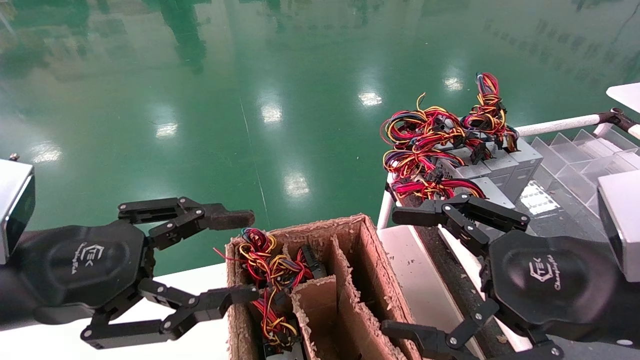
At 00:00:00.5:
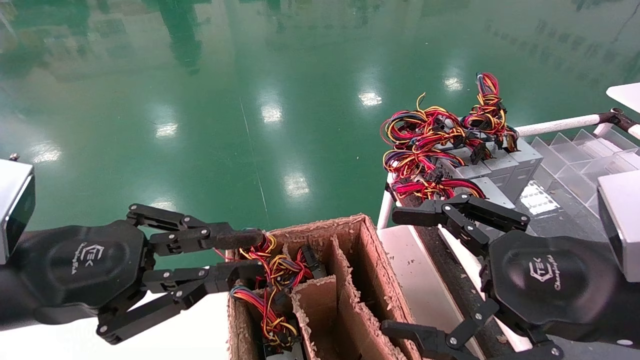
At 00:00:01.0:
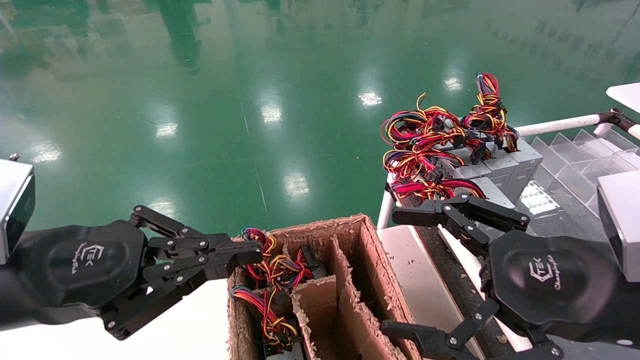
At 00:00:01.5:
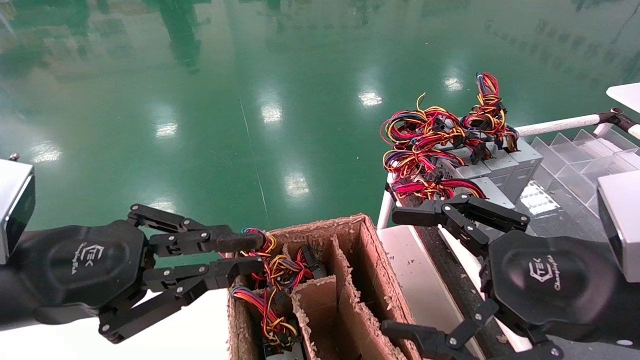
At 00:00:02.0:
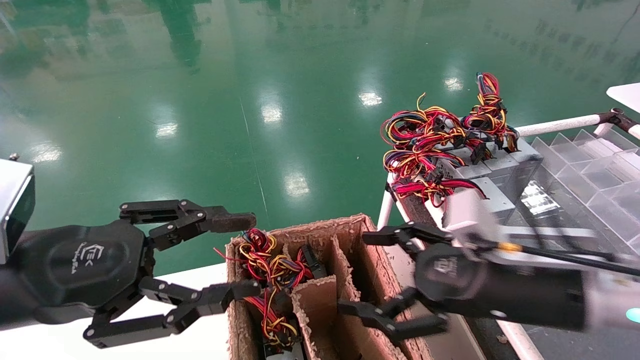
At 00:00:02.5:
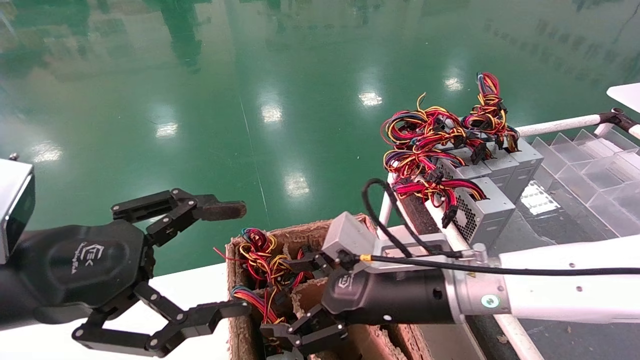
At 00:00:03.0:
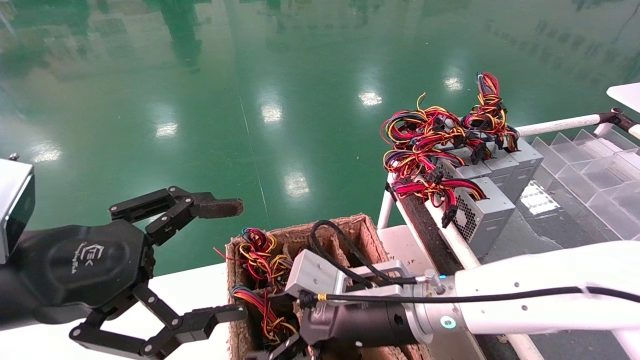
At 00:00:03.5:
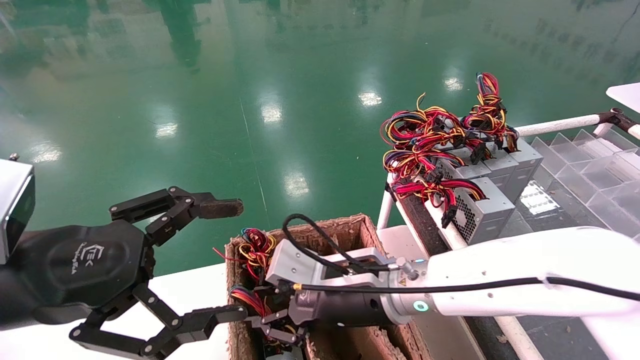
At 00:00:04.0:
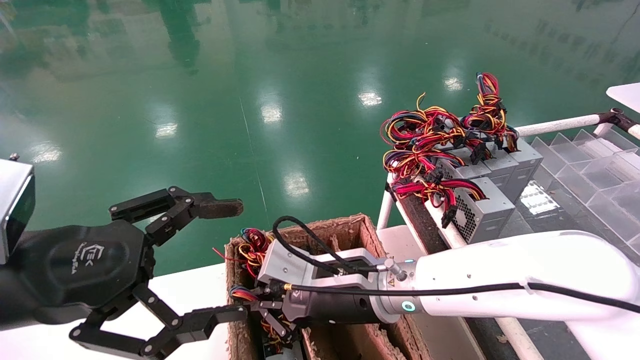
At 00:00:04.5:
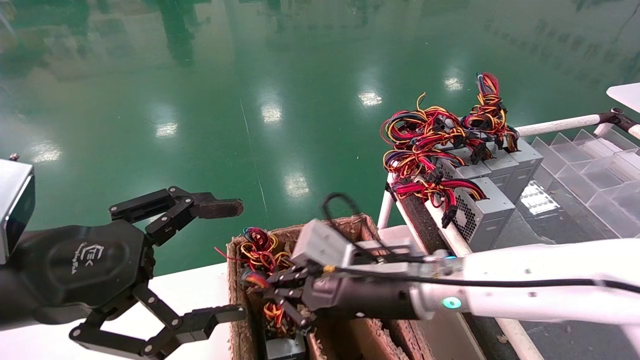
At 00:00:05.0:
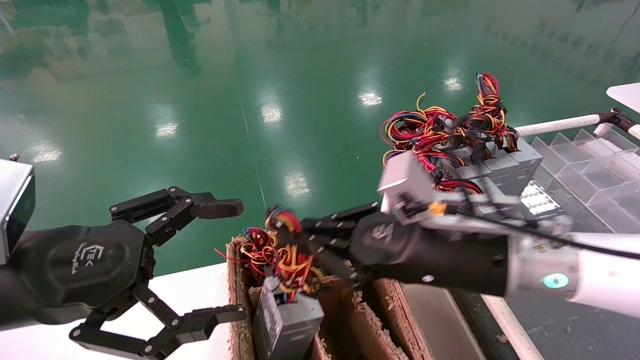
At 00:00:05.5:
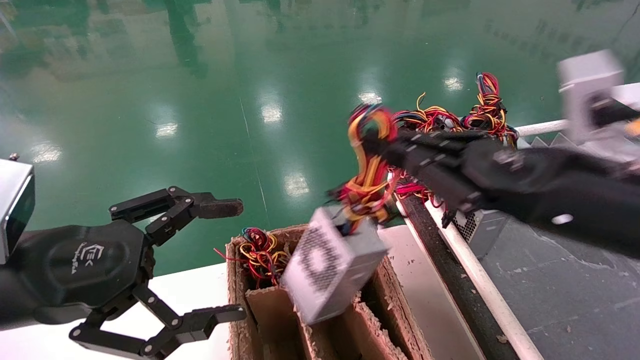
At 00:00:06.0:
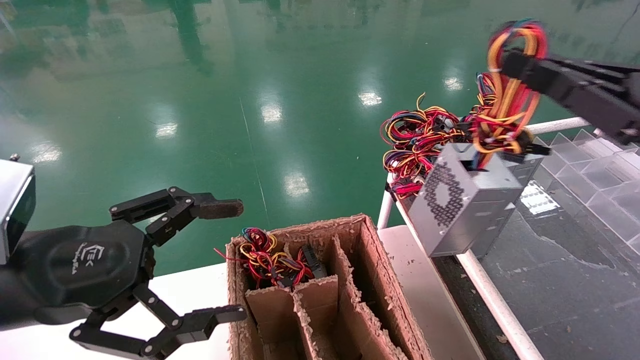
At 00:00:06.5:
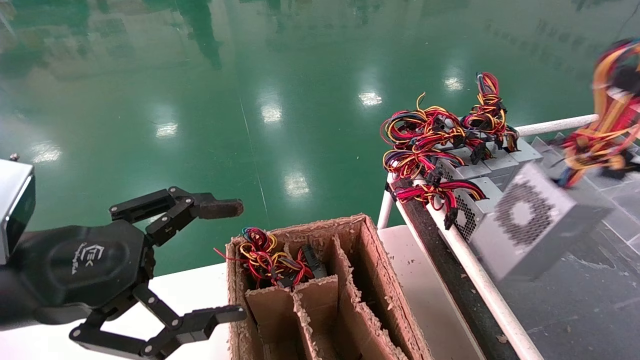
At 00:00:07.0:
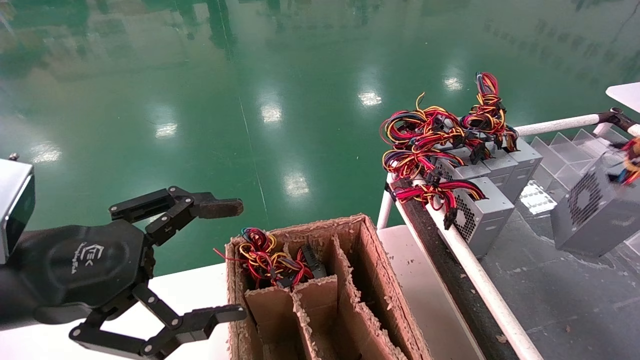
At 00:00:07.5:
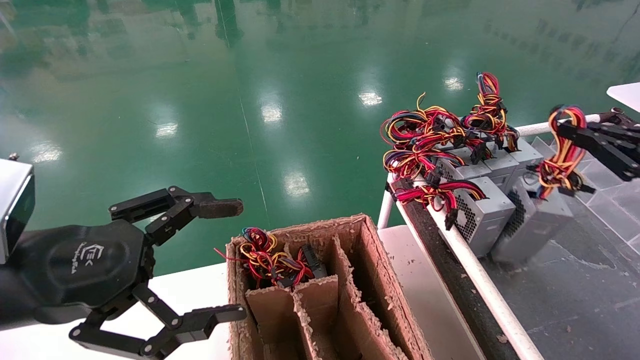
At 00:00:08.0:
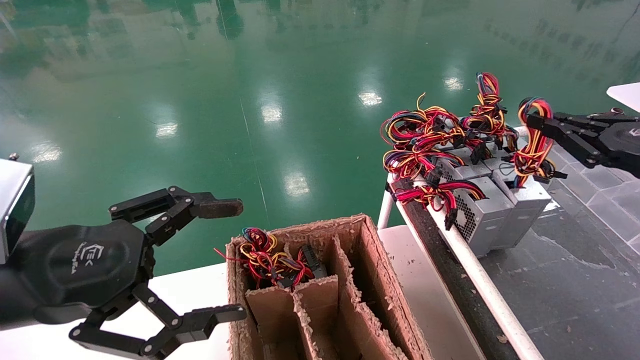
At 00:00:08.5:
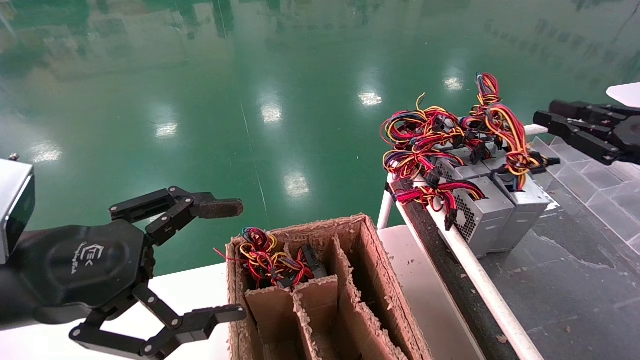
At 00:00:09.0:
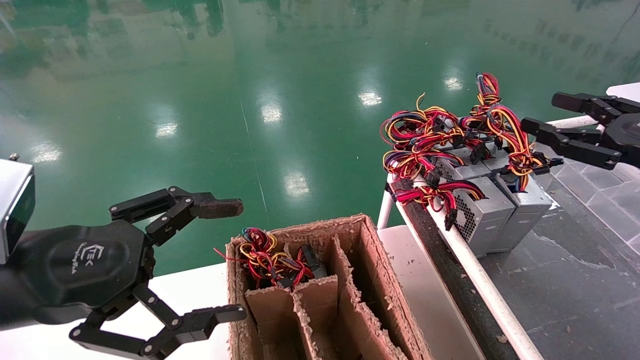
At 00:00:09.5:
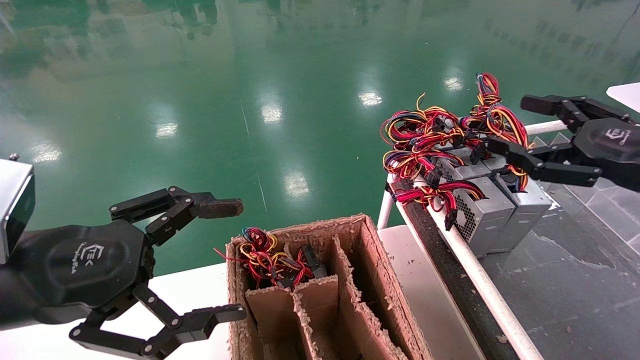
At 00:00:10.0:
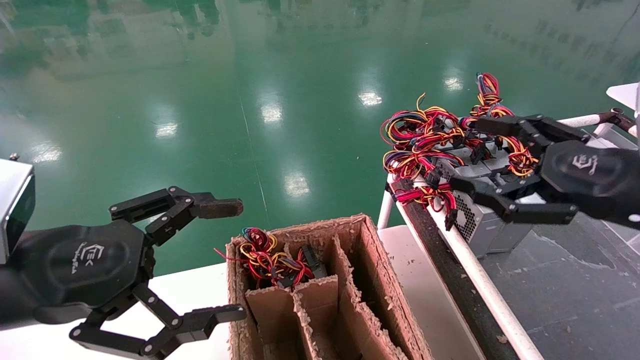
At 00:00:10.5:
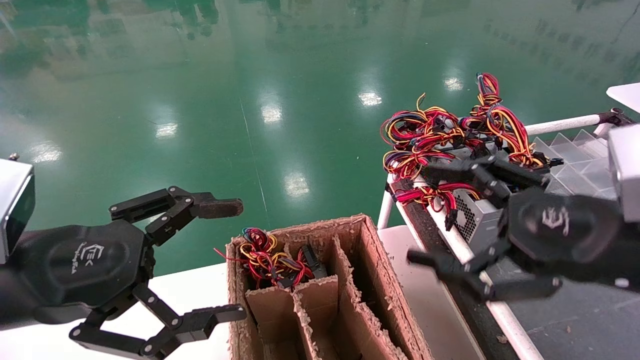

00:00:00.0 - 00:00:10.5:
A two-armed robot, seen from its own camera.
Step, 00:00:01.0 - 00:00:04.0: Grab and lift the power supply from the large box.
Step, 00:00:04.5 - 00:00:08.0: Place the power supply on the operating table.
00:00:00.0 - 00:00:02.0: The left gripper closes, then opens again, while the right gripper shifts roughly 10 cm forward and to the left.
00:00:02.0 - 00:00:04.0: The left gripper opens up. The right gripper goes about 15 cm to the left, and closes its fingers.
00:00:04.0 - 00:00:06.5: The right gripper is displaced to the right by roughly 40 cm.
00:00:06.5 - 00:00:08.5: The right gripper heads forward, covering roughly 10 cm.
00:00:08.5 - 00:00:10.5: The right gripper heads to the left and backward, covering some 20 cm, and opens.
